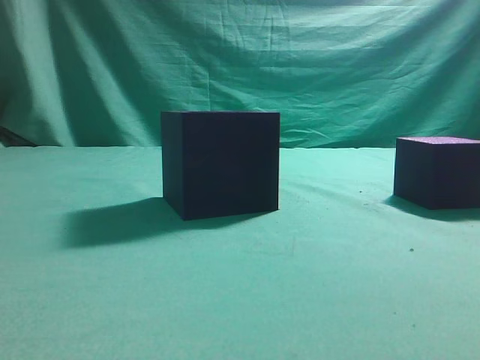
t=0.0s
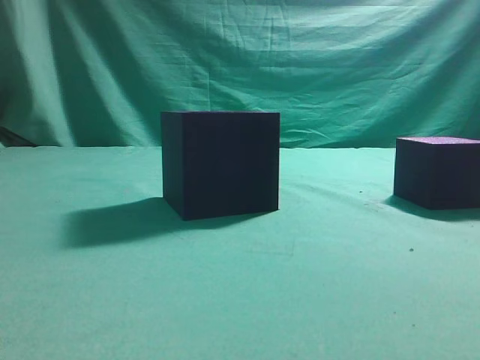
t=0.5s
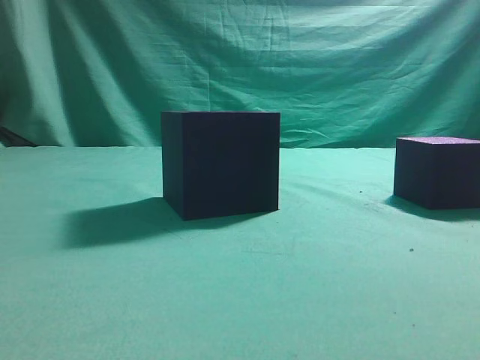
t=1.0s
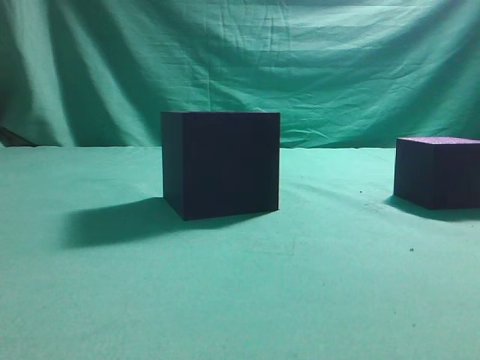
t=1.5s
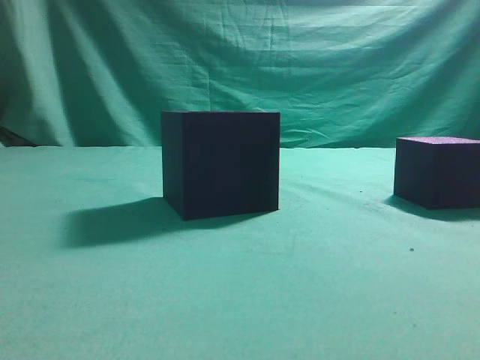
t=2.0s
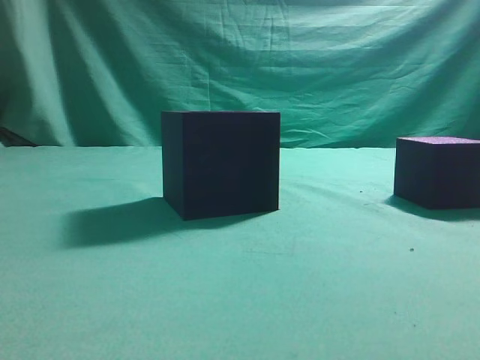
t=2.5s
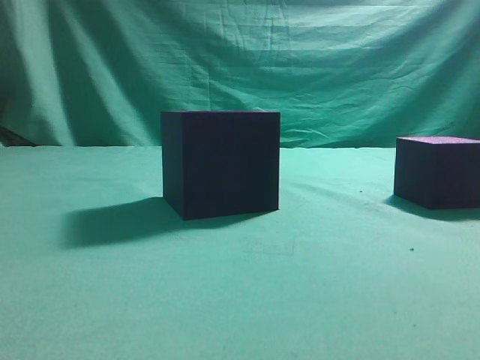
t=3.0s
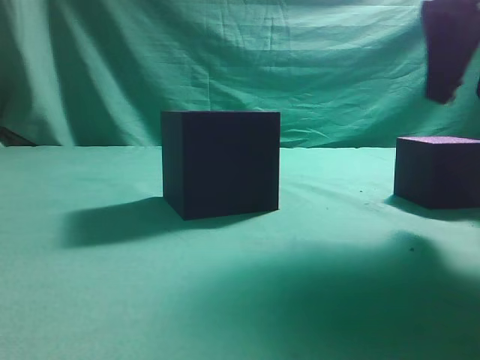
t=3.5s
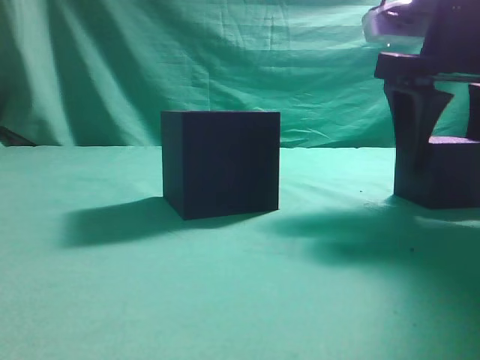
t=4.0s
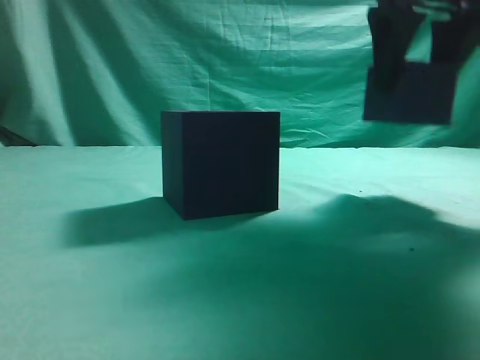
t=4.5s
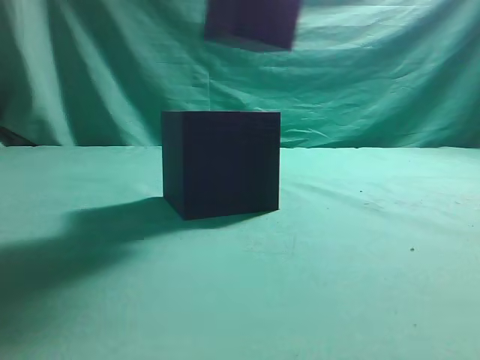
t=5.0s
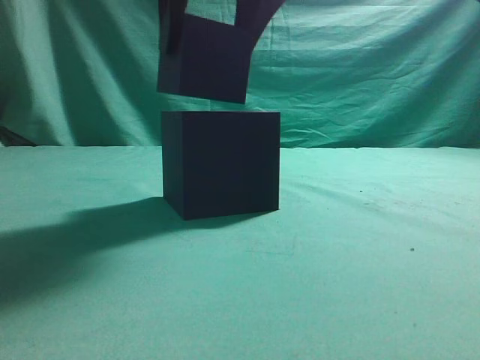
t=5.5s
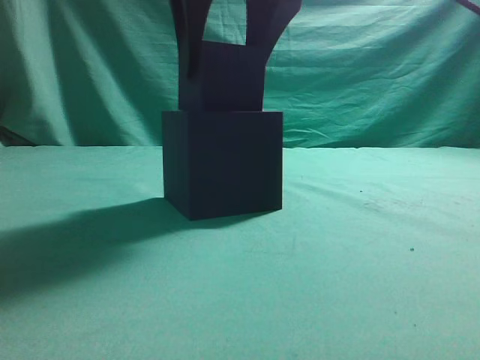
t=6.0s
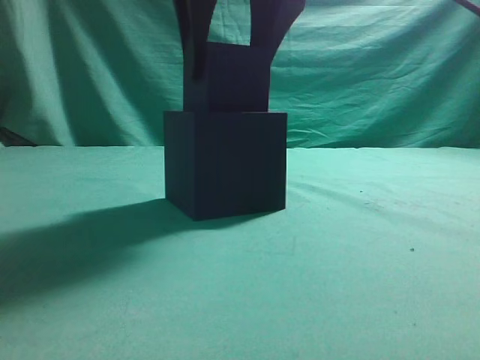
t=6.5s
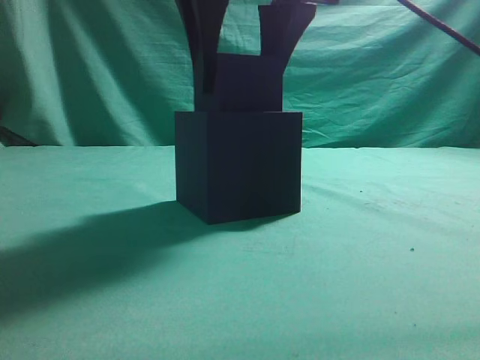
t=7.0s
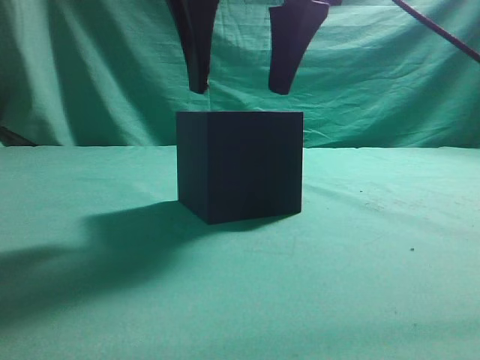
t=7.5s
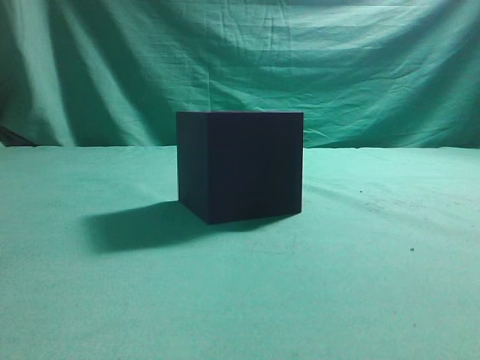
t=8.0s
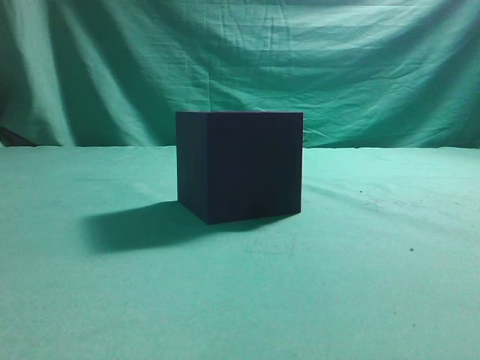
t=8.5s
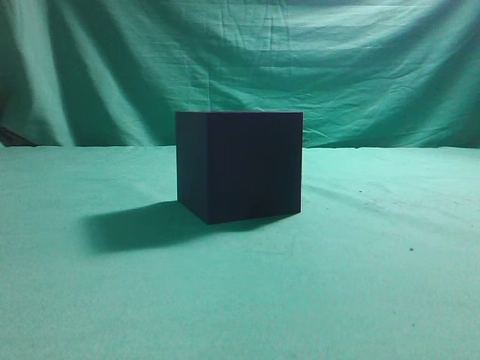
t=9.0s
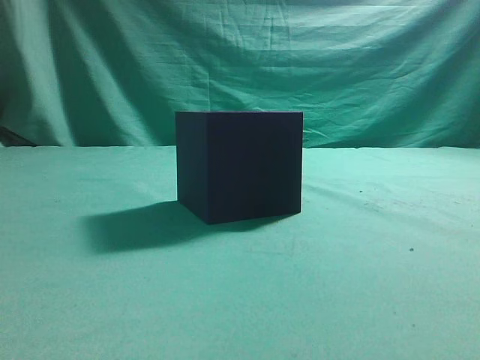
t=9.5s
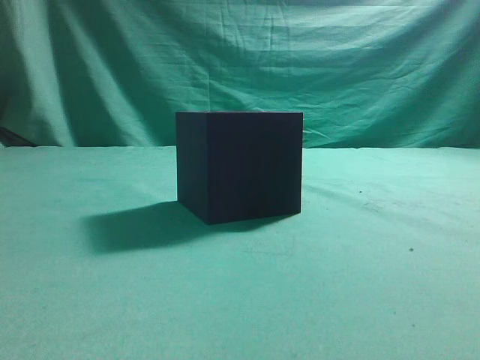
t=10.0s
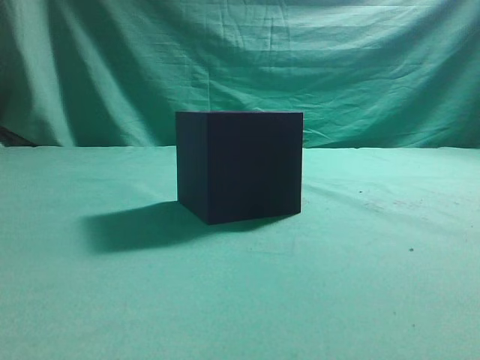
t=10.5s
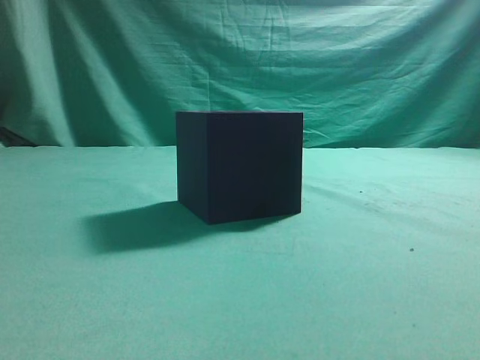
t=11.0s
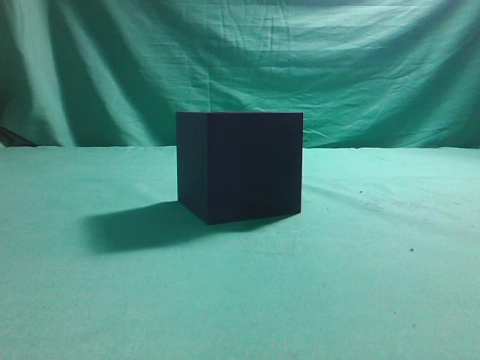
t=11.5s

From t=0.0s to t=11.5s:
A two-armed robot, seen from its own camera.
Task of the whole recording: pick up the cube block and place it into the cube groove.
Step, from t=0.0s to t=4.0s: Grasp the cube.
Step, from t=4.5s to t=7.5s: Place cube into the cube-shaped recess.
From t=2.0s to t=4.0s: The right gripper shifts roughly 25 cm forward and to the left, and opens.
From t=4.0s to t=6.0s: The right gripper goes about 20 cm to the left and upward.
From t=6.0s to t=7.5s: The grippers stay close to where they were, moving slightly.
From t=7.5s to t=9.5s: The right gripper travels to the right, backward and upward by approximately 35 cm, and closes its fingers.
